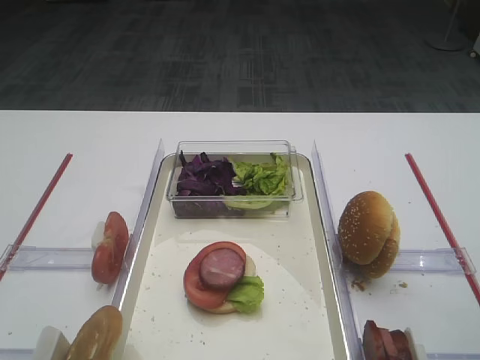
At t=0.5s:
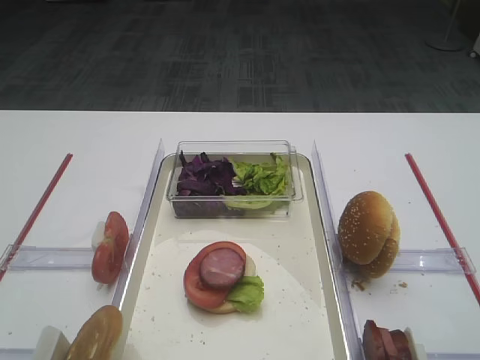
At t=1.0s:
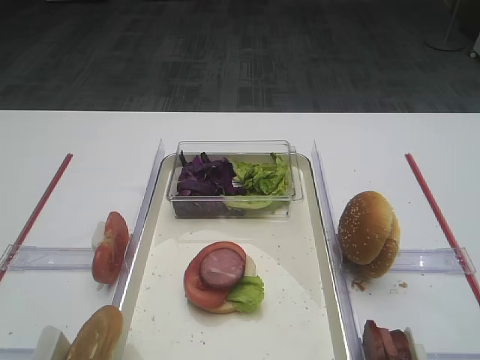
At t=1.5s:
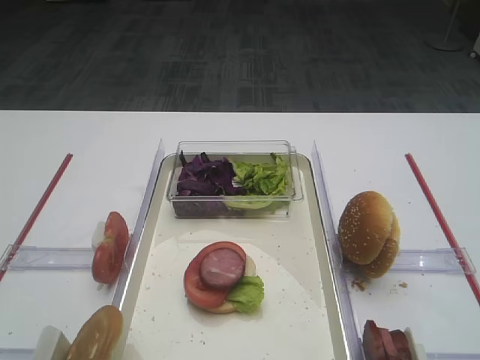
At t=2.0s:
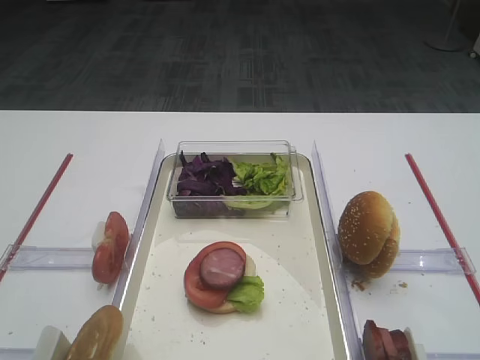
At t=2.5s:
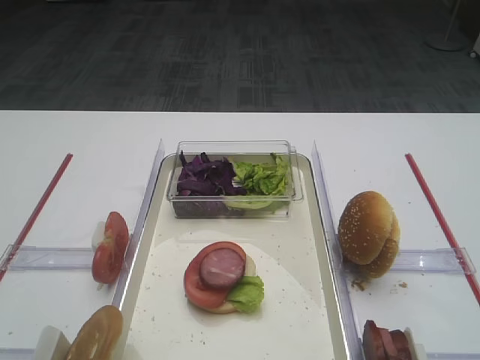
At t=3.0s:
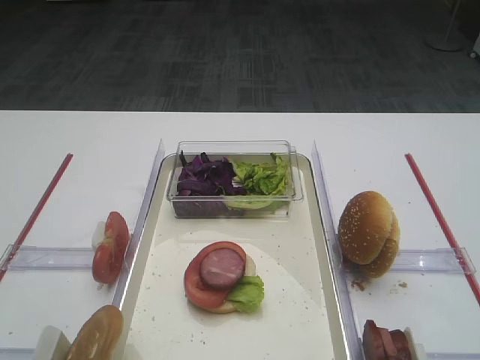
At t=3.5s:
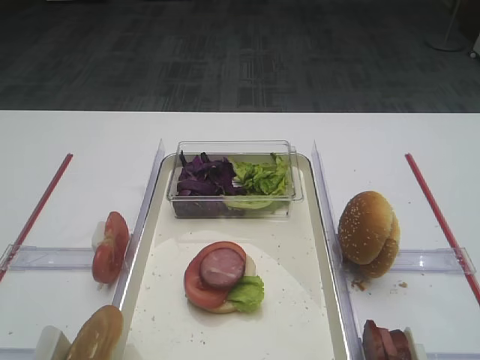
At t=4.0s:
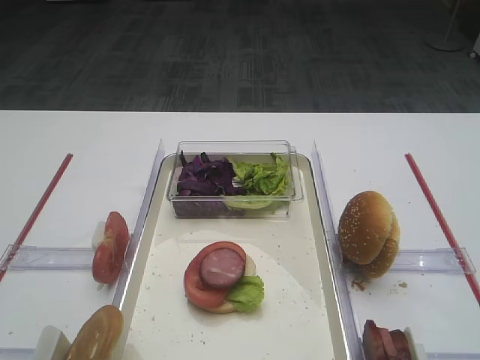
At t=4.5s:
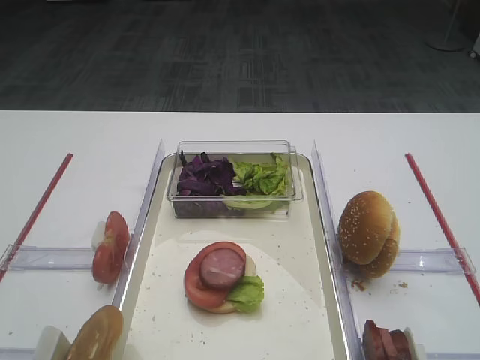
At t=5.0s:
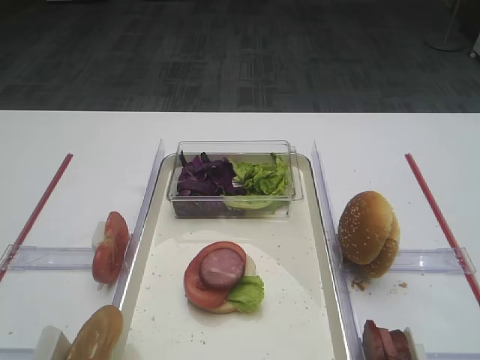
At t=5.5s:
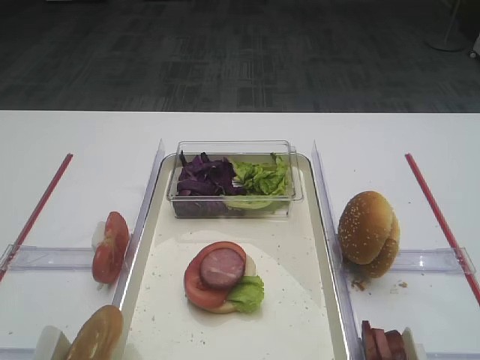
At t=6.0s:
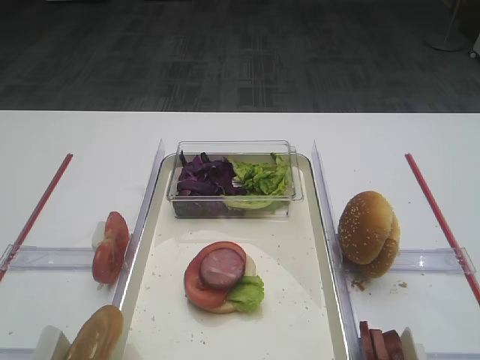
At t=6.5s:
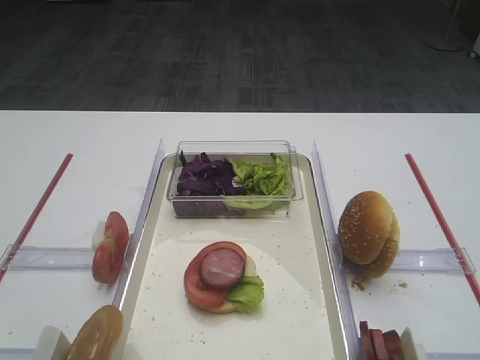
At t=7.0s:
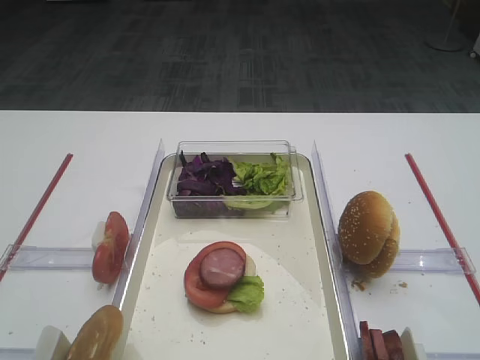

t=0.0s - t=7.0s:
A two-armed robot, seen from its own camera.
t=2.0s - t=7.0s: The two grippers keep their place.

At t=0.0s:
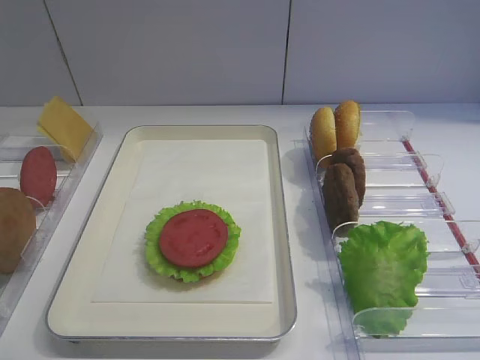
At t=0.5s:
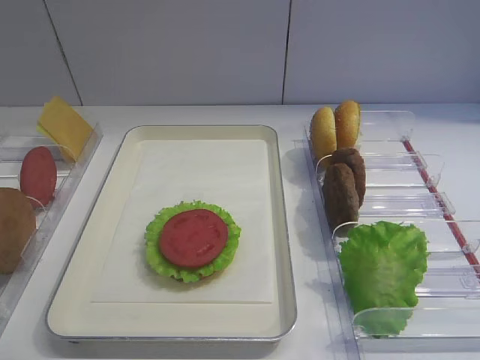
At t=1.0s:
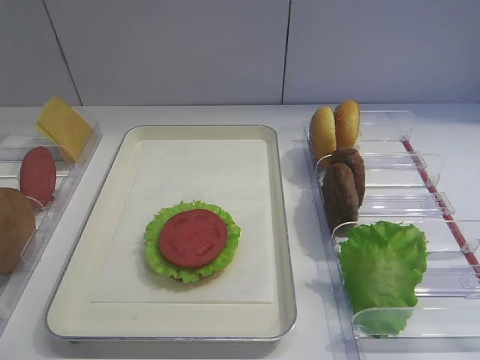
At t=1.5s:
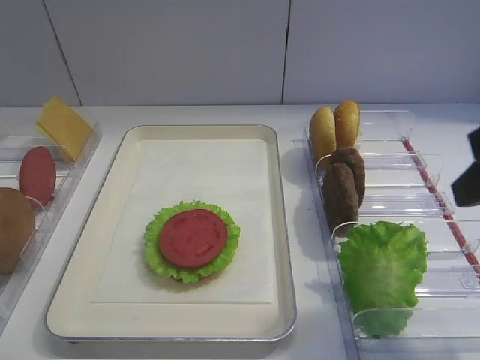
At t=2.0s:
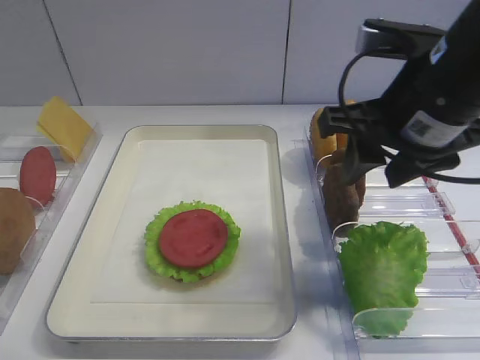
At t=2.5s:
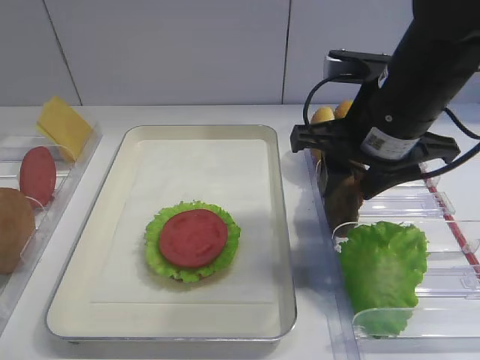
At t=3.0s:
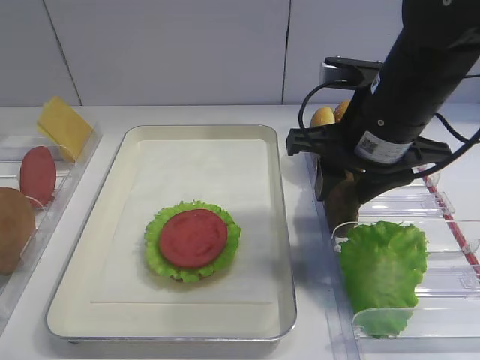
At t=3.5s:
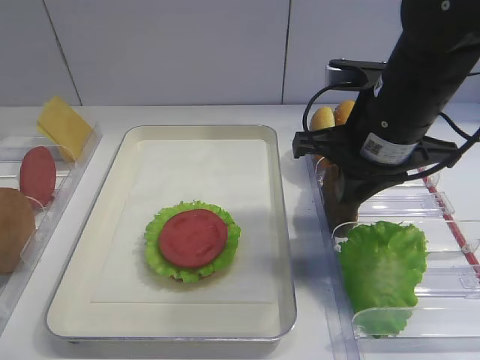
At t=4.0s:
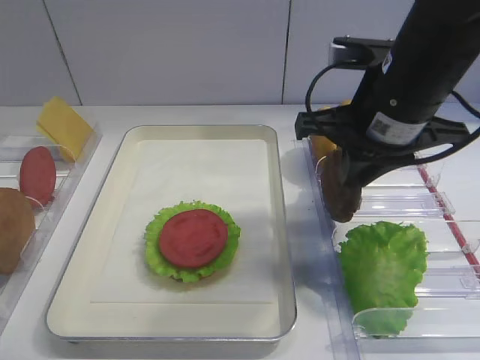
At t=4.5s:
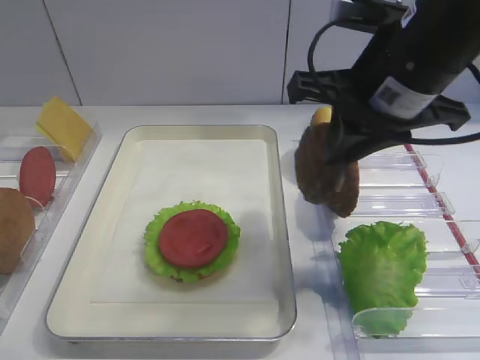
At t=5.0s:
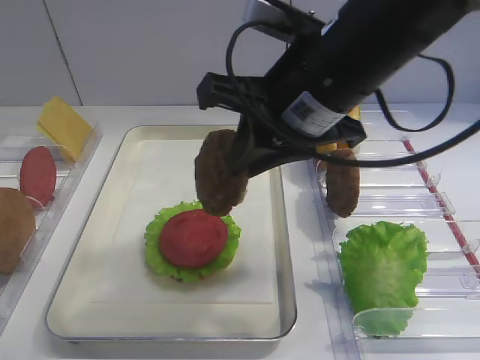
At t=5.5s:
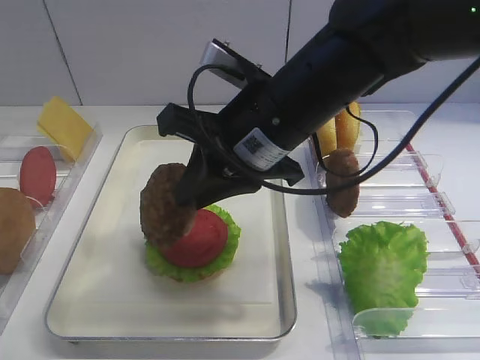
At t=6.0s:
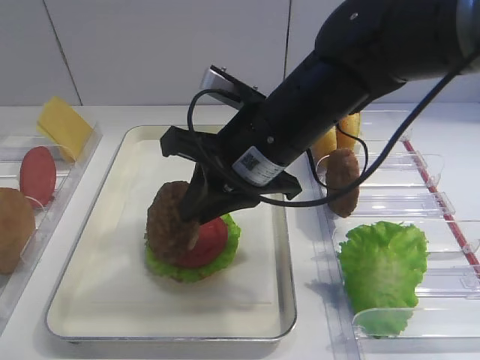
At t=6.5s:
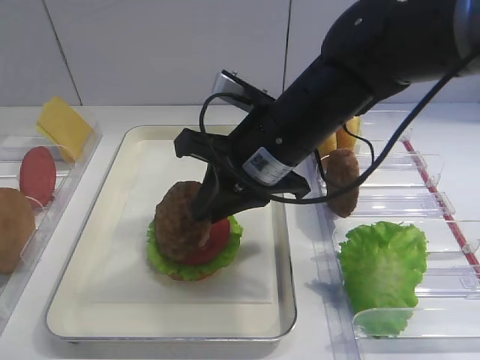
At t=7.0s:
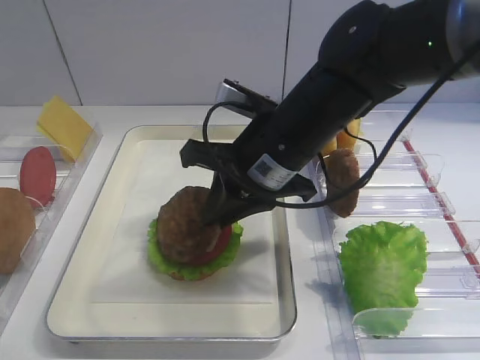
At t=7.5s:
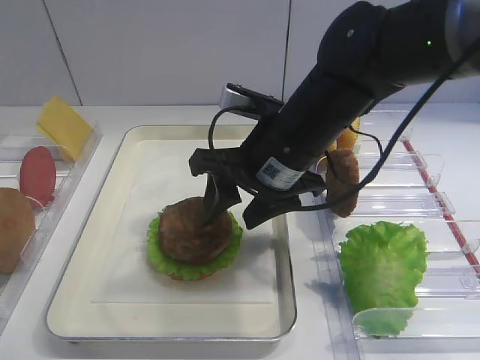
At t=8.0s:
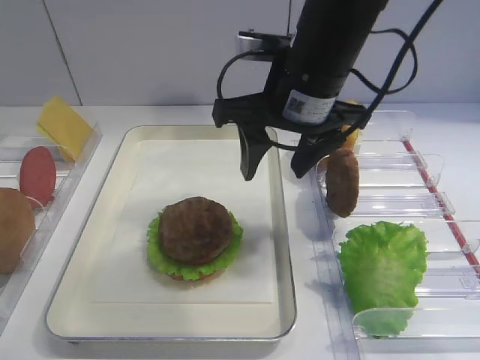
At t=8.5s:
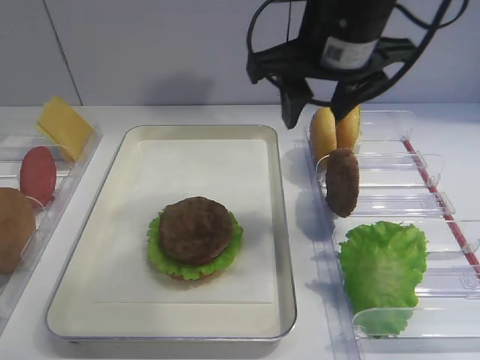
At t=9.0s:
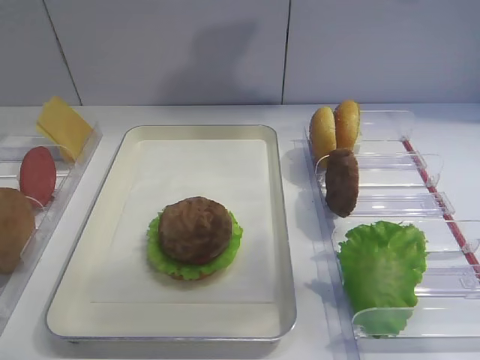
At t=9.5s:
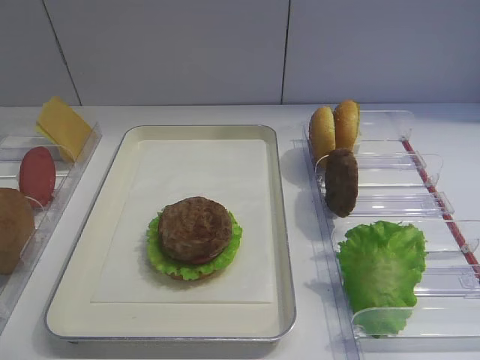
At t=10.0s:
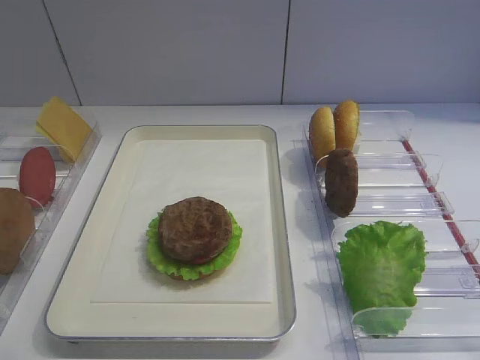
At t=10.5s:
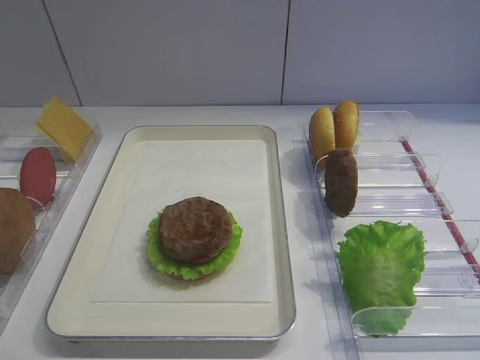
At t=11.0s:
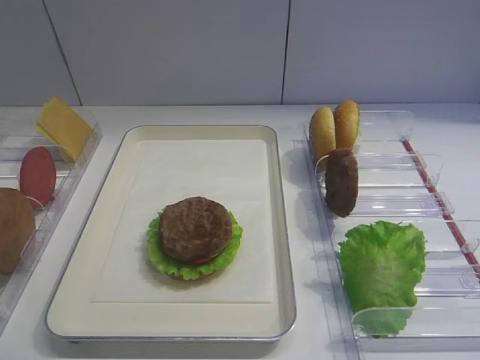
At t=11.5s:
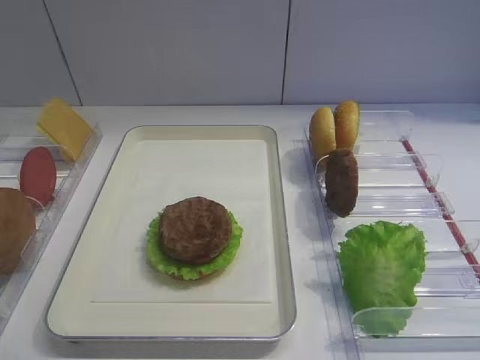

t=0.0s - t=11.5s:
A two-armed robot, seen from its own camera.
Step, t=0.0s - t=4.0s: Pick up the cutlet with the right gripper.
Step, t=4.5s - t=7.5s: Place the cutlet on the tomato slice with the right gripper.
t=2.0s - t=4.0s: The right gripper closes its fingers.
t=4.0s - t=6.0s: The right gripper goes roughly 10 cm to the left.
t=6.0s - t=7.5s: The right gripper opens its fingers.
t=7.5s - t=9.5s: The right gripper shifts roughly 30 cm to the right, upward and backward.

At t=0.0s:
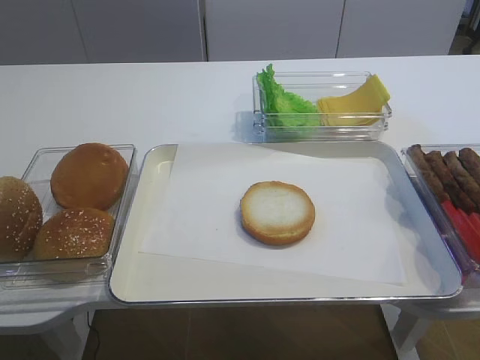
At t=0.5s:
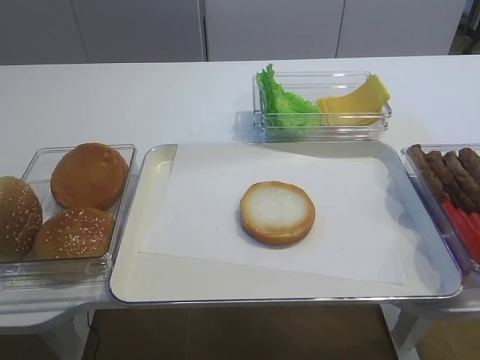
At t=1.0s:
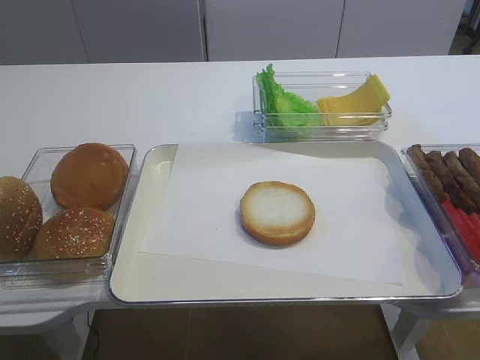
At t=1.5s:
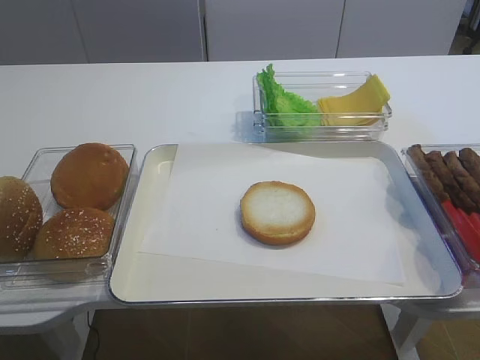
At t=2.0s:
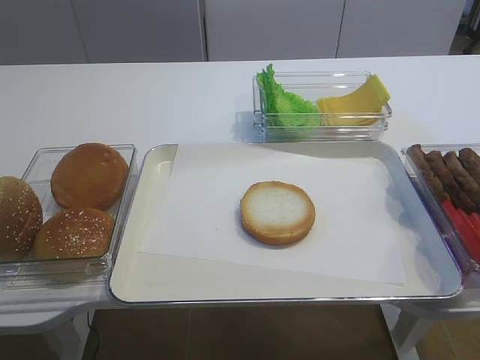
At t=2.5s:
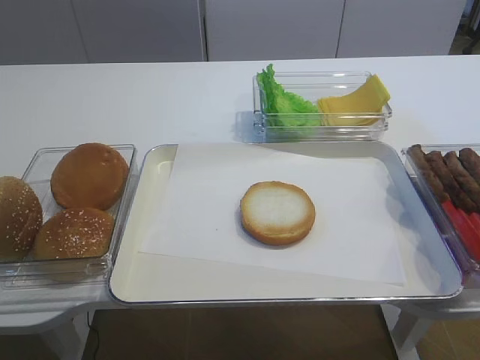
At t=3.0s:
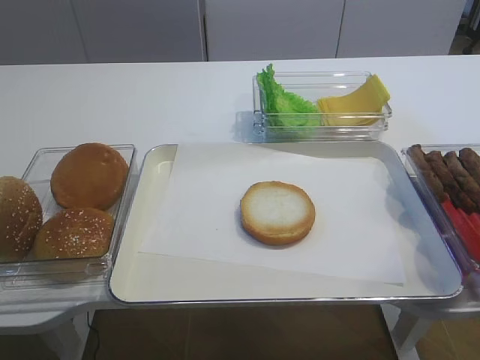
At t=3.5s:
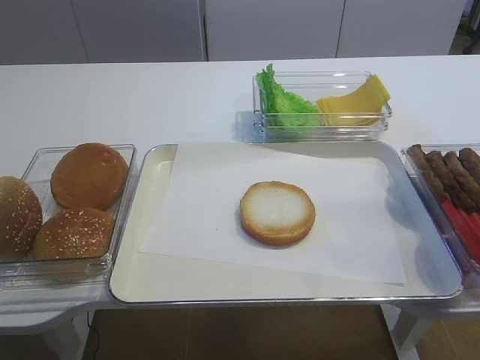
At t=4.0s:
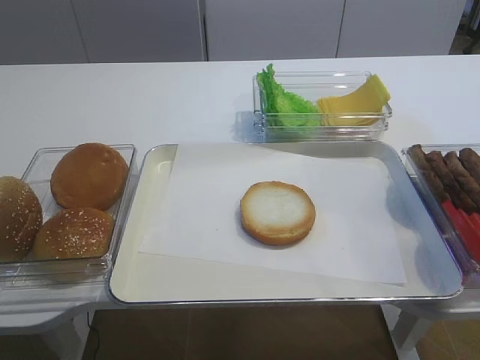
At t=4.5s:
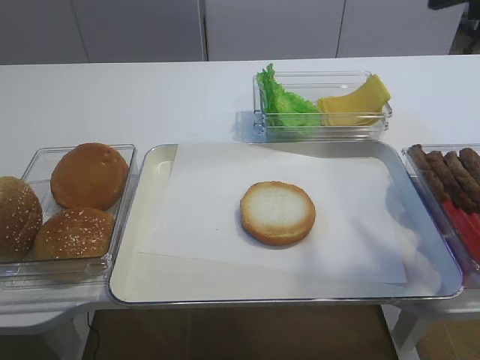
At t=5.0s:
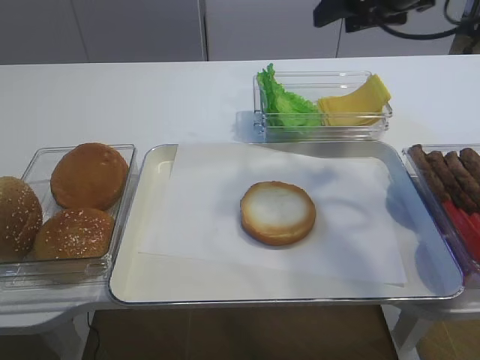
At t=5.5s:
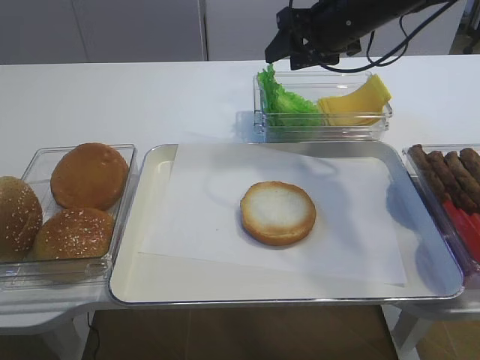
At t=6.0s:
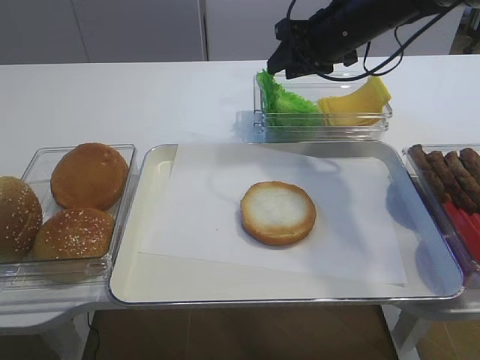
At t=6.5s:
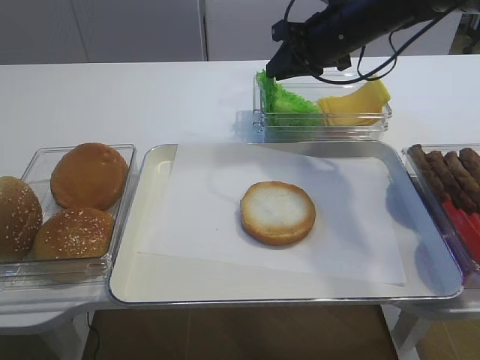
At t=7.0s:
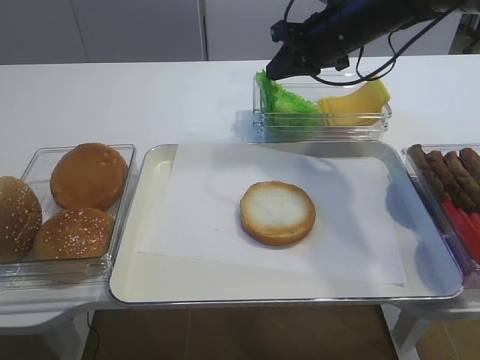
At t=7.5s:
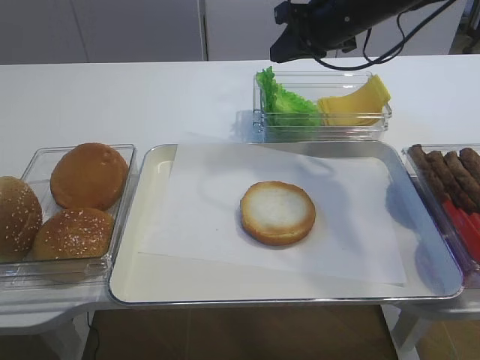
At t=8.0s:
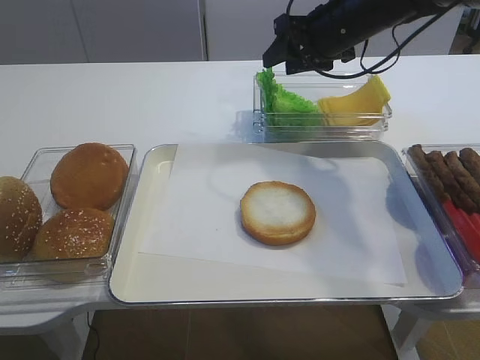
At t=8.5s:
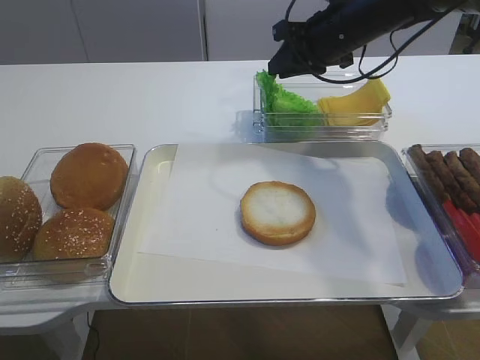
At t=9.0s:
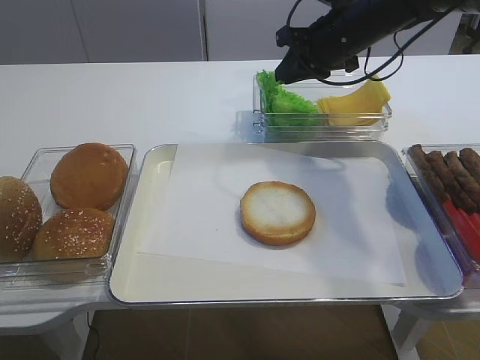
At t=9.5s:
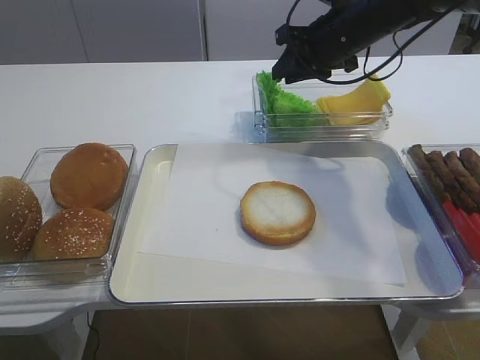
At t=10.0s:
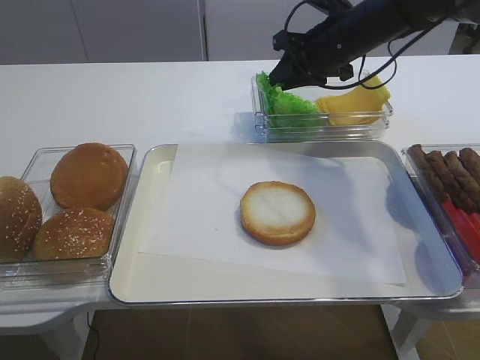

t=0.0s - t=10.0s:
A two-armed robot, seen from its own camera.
t=2.0s - t=4.0s: The right gripper is displaced forward and upward by about 15 cm.
t=4.0s - t=6.0s: The right gripper shifts roughly 30 cm forward.
t=6.0s - t=8.0s: The right gripper closes, then opens again.
t=8.0s - t=10.0s: The right gripper closes.
